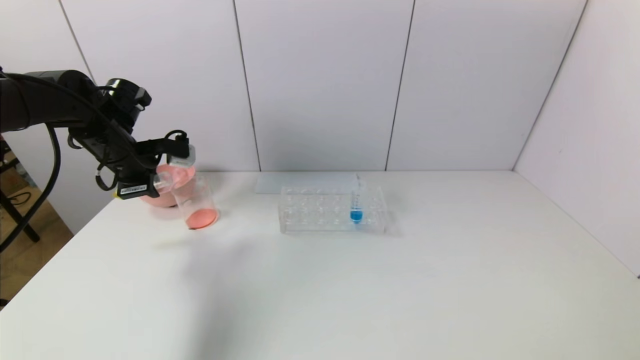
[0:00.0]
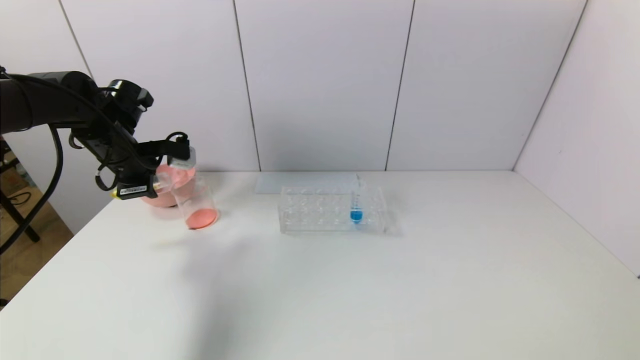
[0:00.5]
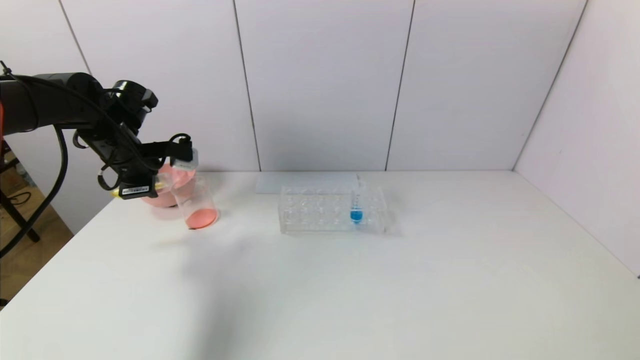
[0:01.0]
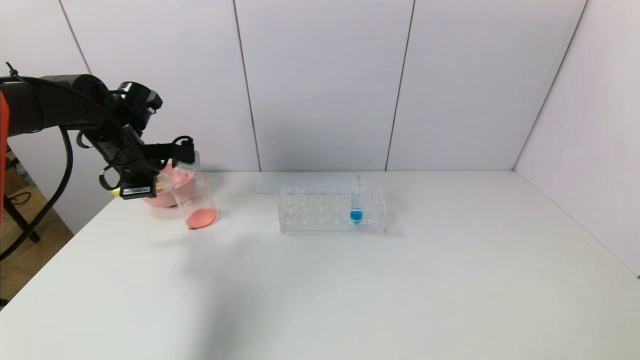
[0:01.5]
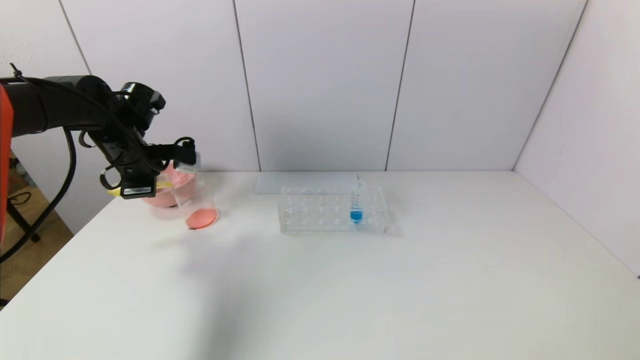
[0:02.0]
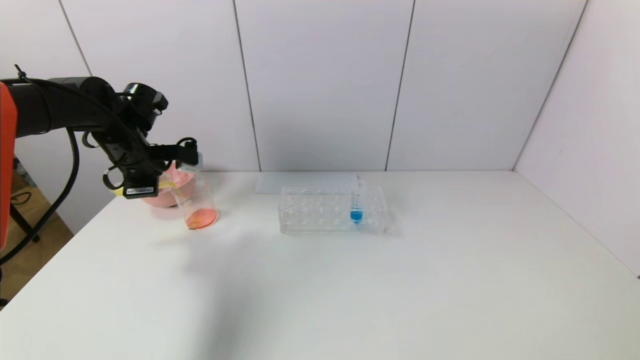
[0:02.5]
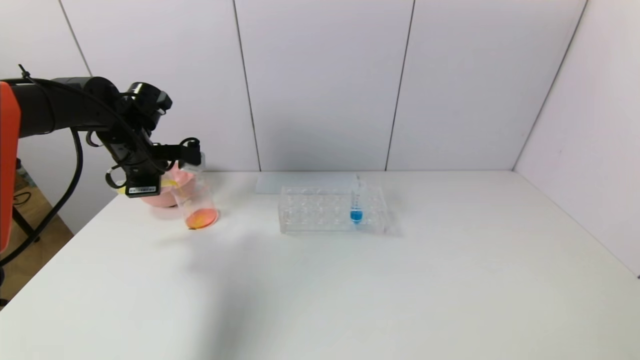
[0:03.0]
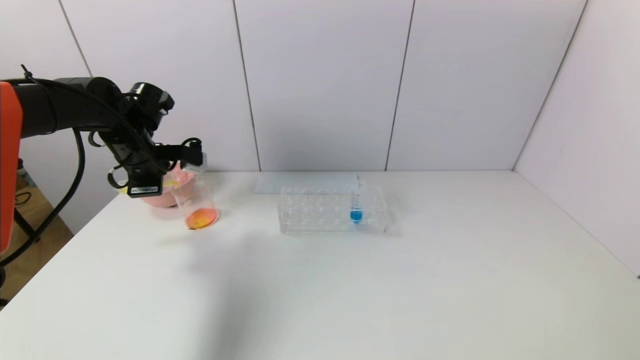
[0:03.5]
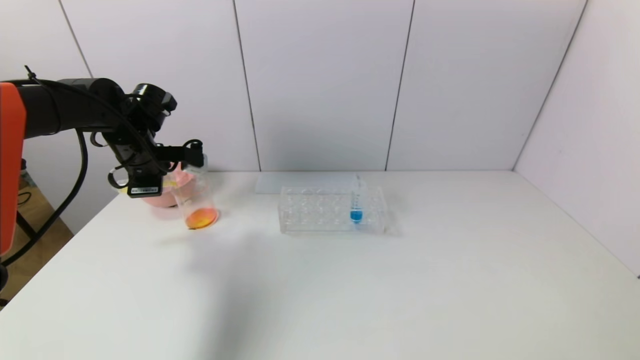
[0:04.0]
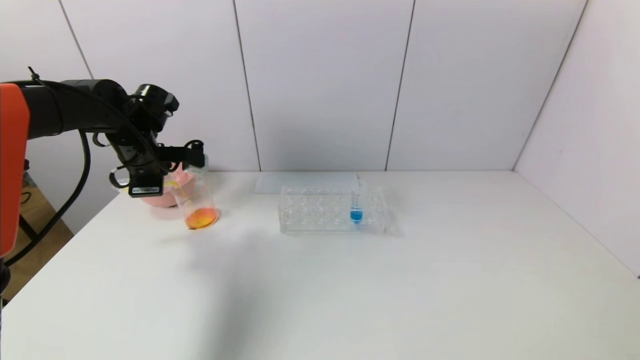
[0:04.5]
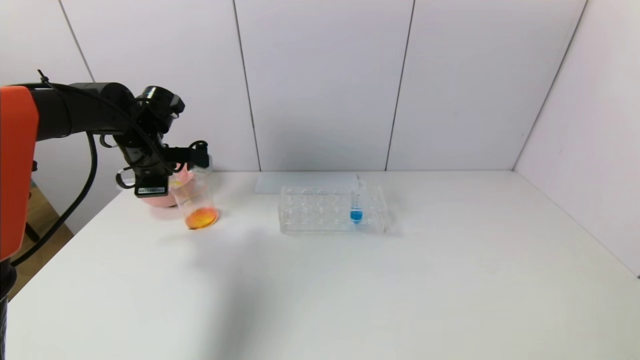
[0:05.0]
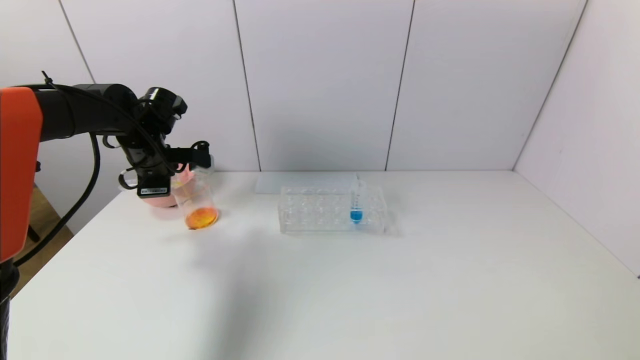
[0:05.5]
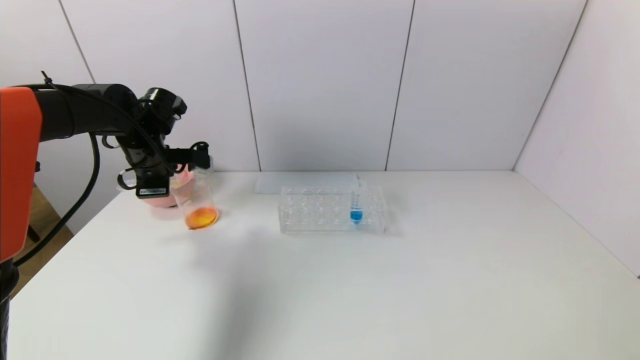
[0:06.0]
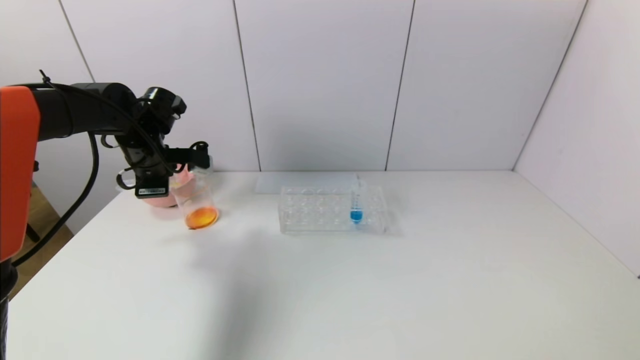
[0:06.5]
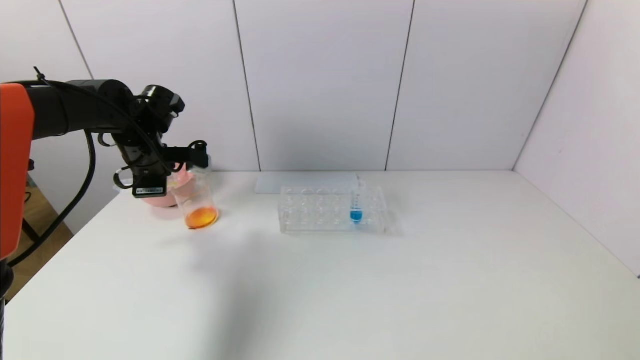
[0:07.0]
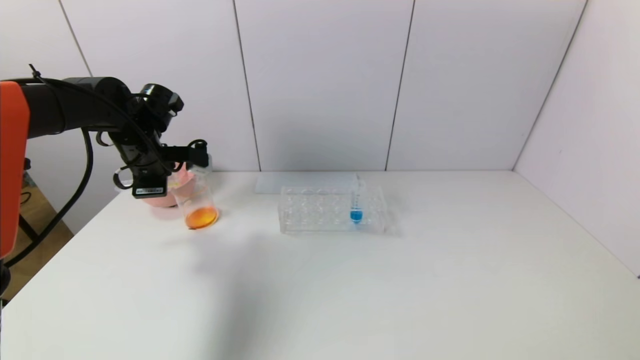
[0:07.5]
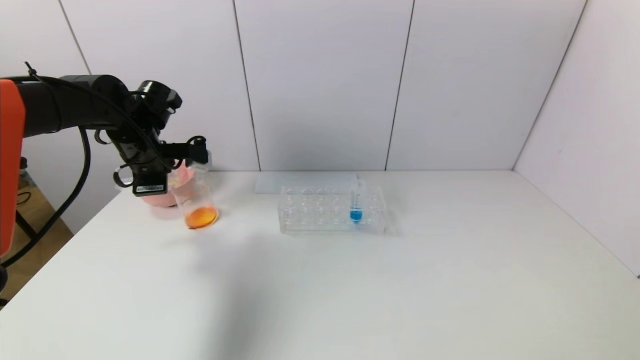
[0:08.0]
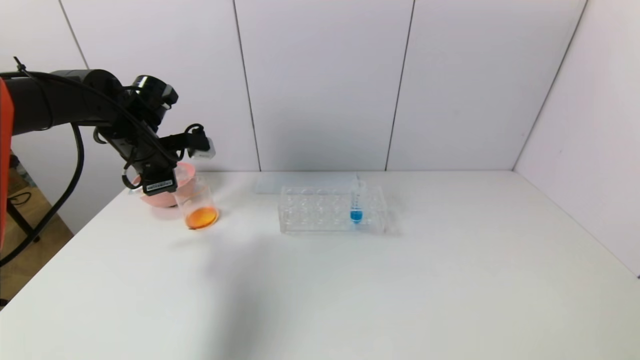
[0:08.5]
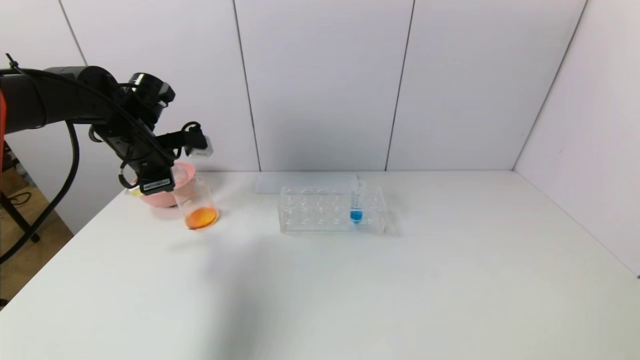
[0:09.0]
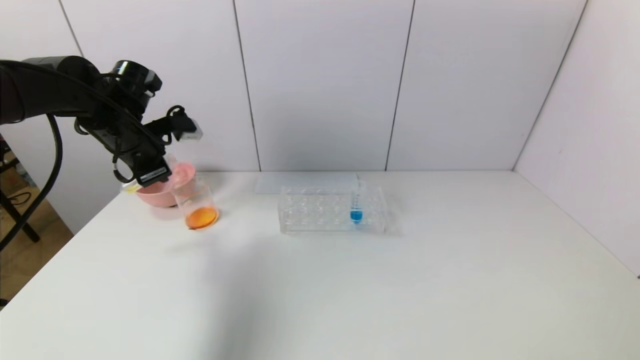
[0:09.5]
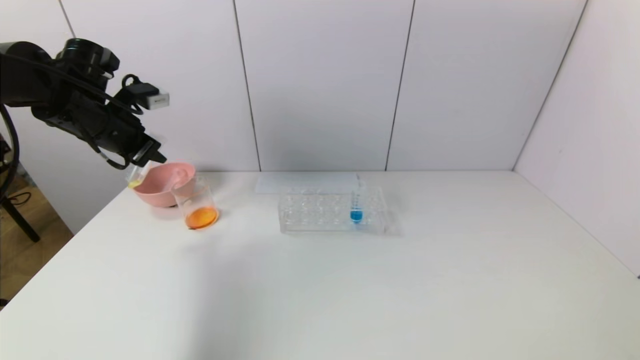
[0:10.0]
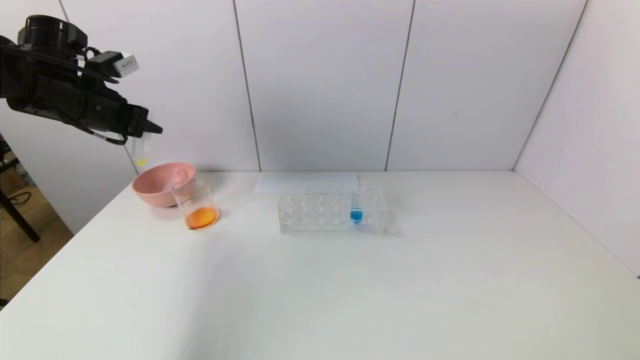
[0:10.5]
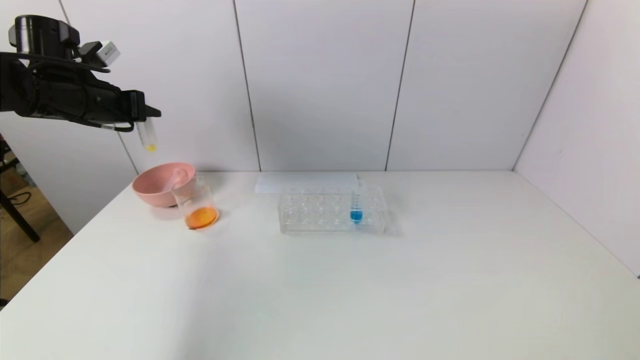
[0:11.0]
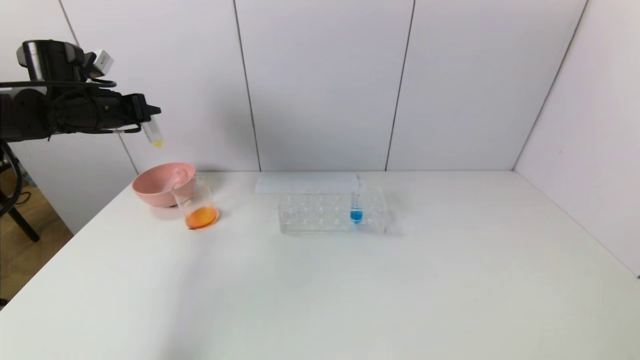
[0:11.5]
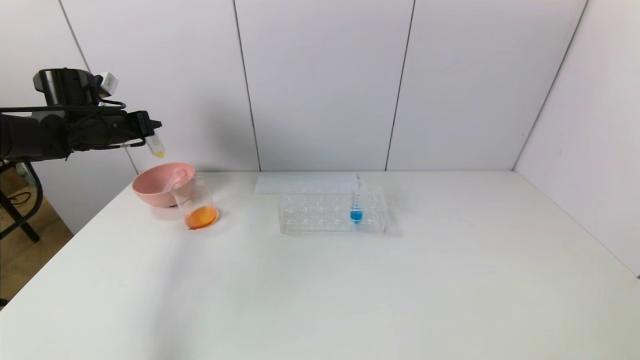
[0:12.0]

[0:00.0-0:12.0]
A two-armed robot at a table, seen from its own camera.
Task of the whole recording: pick up the test tube with yellow pigment and the test tube with red pigment by grippers and pour them into the beaker.
Step, 0:00.0 to 0:07.5: Pour the yellow reagent into the graduated cylinder with the left gripper.
0:00.0 to 0:02.0: There are only small adjustments of the grippers.
0:02.0 to 0:04.0: Neither gripper changes place.
0:04.0 to 0:06.0: Both grippers stay put.
0:06.0 to 0:08.0: The grippers make only small movements.
0:08.0 to 0:10.0: The left gripper goes roughly 5 cm upward.
0:10.0 to 0:12.0: The left gripper moves to the left and forward, approximately 10 cm.

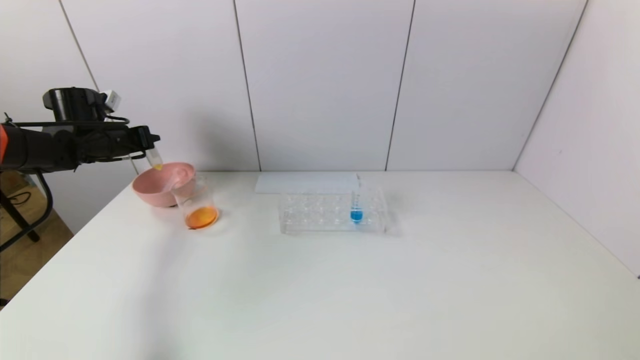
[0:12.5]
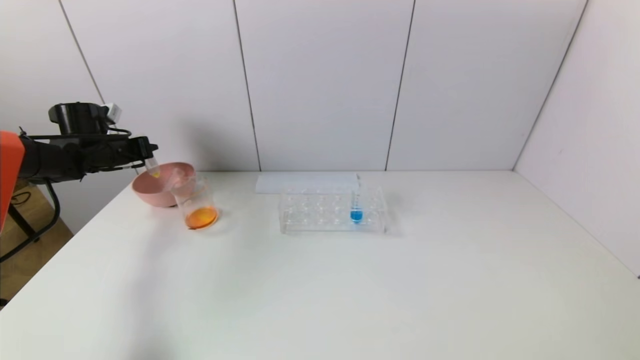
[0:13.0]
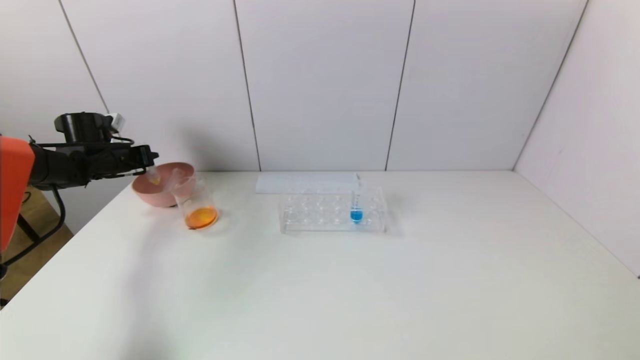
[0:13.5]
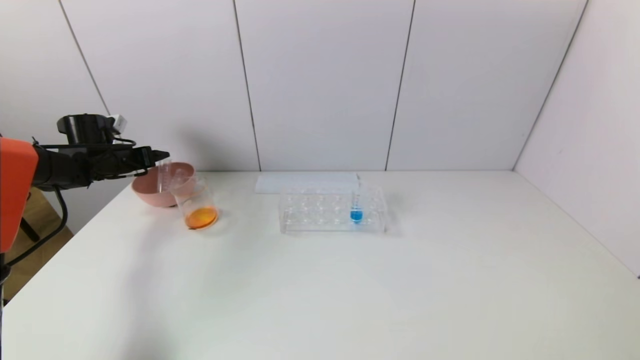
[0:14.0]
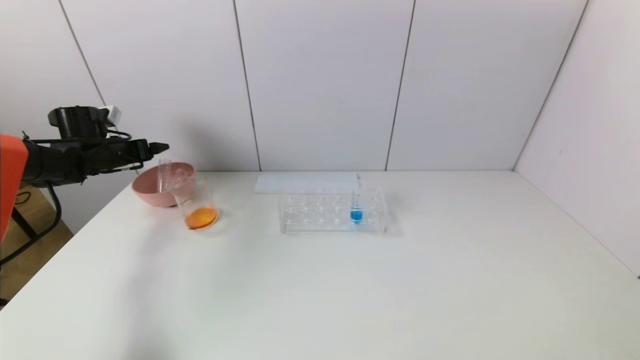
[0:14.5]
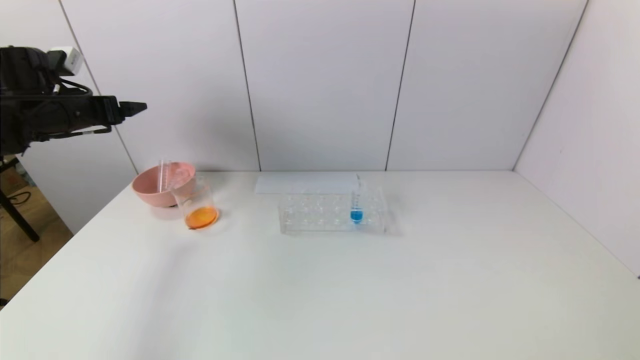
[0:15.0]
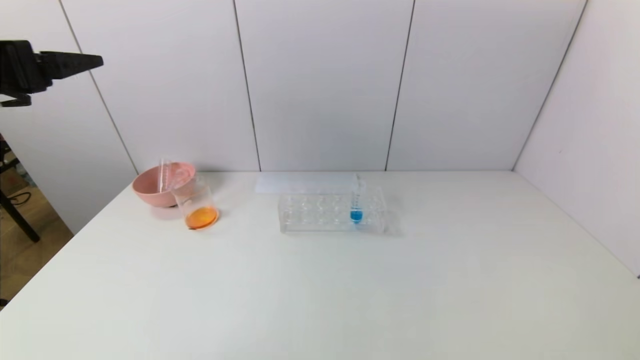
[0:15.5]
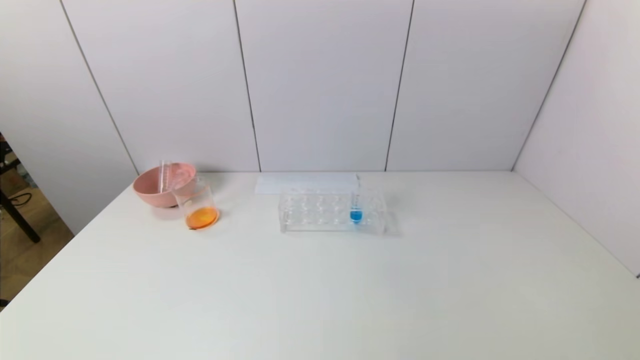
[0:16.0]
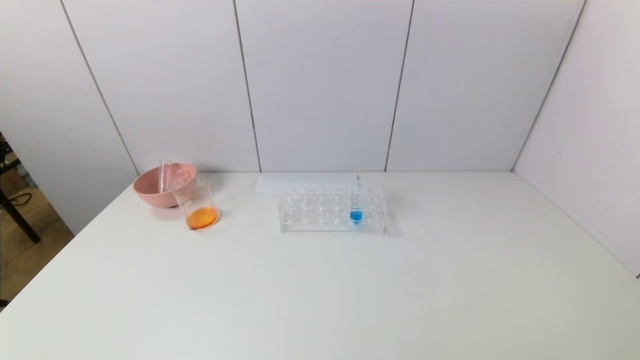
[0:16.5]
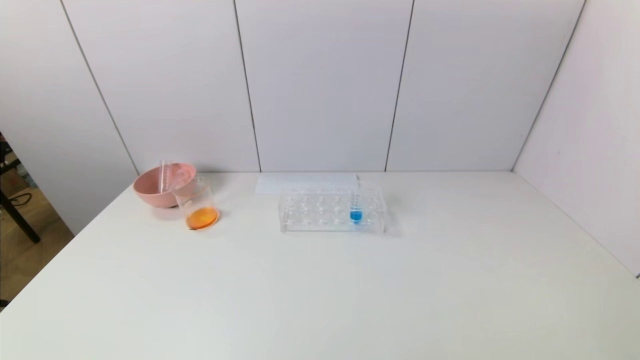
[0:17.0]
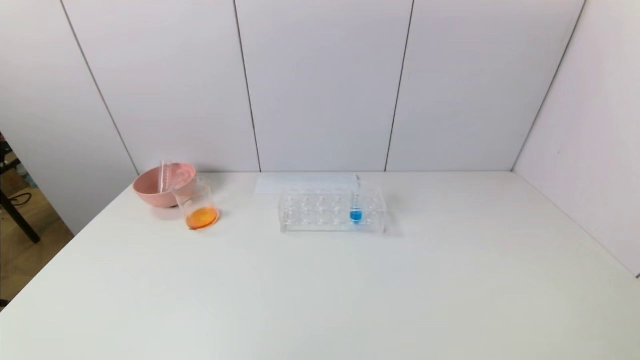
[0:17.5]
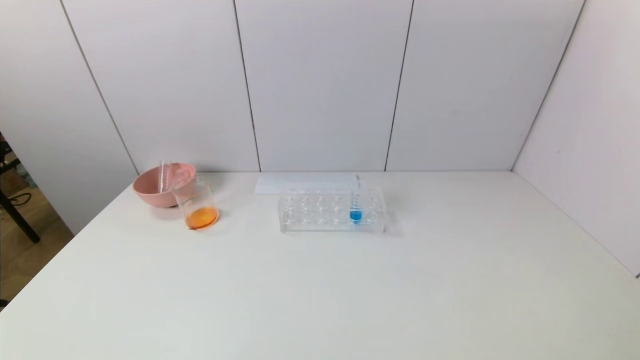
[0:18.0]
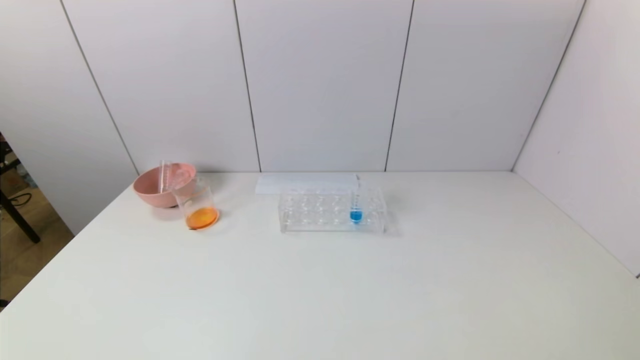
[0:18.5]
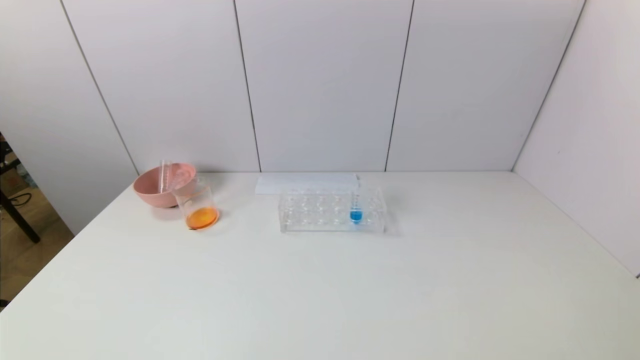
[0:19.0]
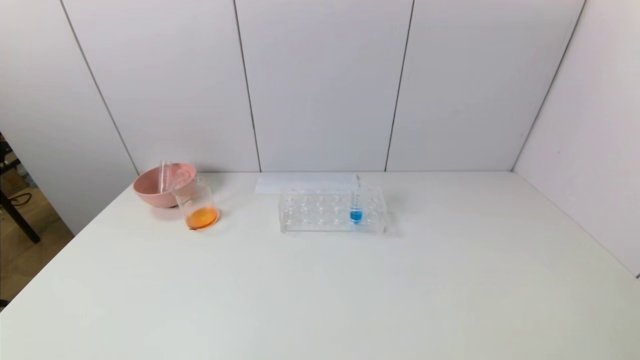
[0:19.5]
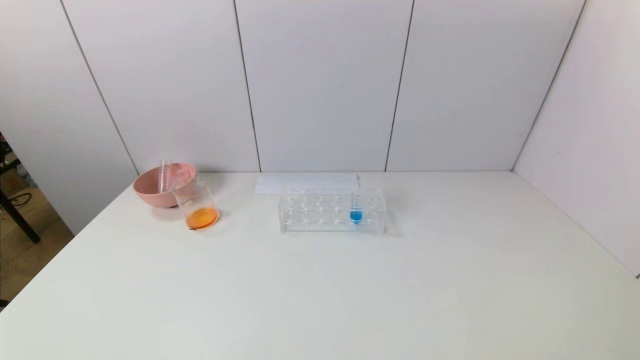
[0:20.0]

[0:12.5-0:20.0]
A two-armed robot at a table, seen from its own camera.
Task of the whole recording: pick up the test tube with yellow pigment and the test tube with red pigment by grippers and pour them into the beaker.
0:12.5 to 0:14.5: The left gripper opens its fingers.
0:14.5 to 0:16.5: The left gripper moves backward, roughly 60 cm.
